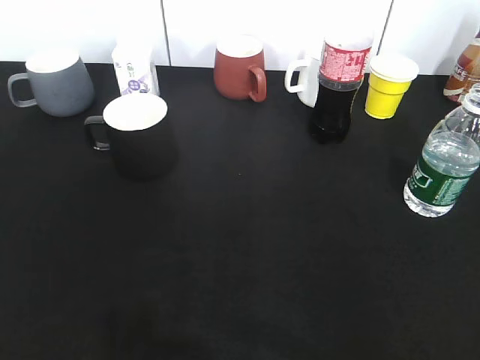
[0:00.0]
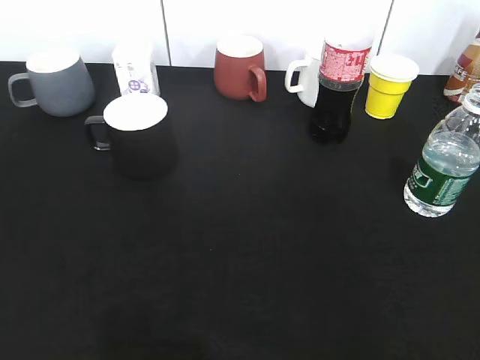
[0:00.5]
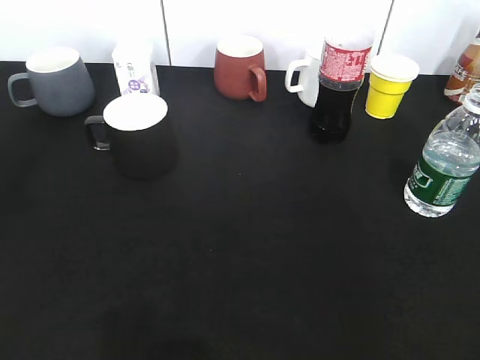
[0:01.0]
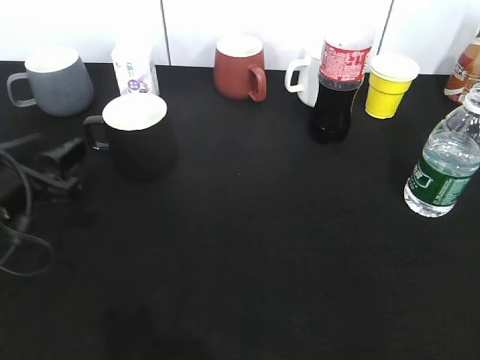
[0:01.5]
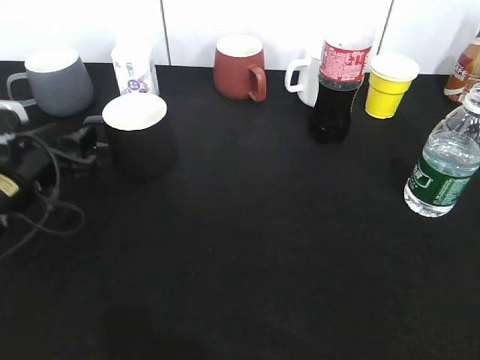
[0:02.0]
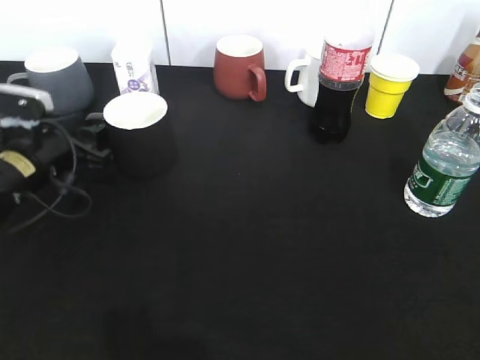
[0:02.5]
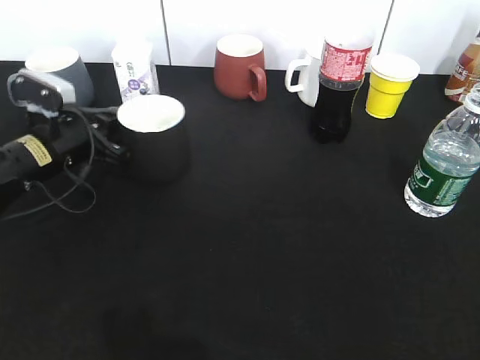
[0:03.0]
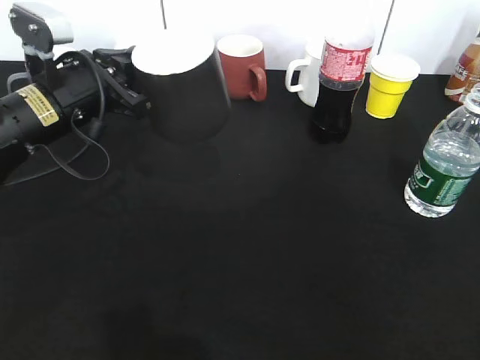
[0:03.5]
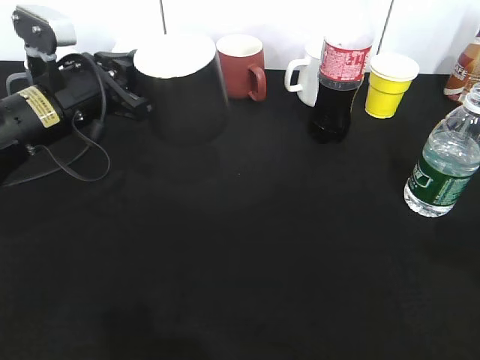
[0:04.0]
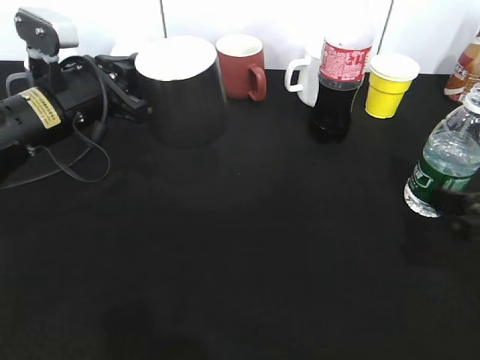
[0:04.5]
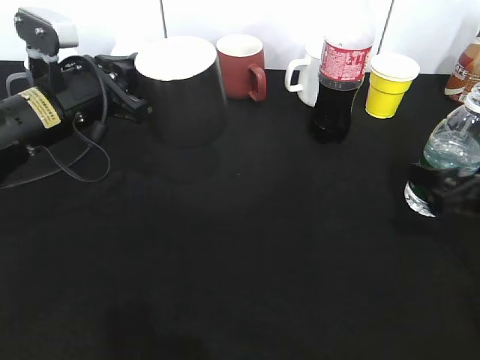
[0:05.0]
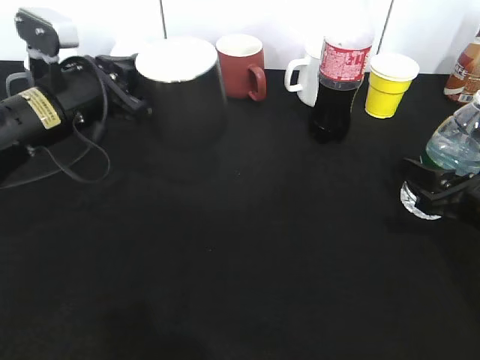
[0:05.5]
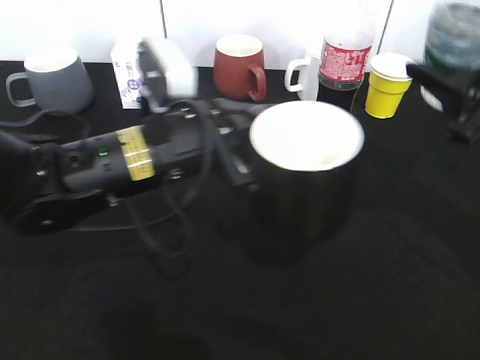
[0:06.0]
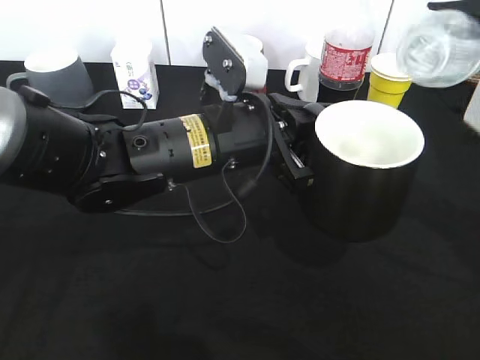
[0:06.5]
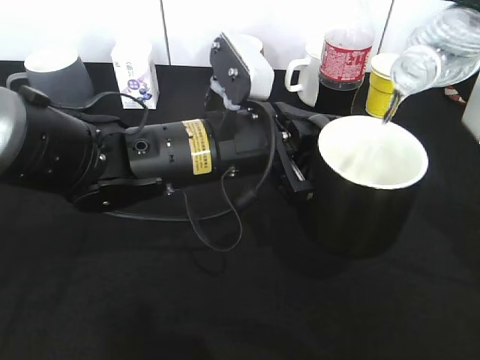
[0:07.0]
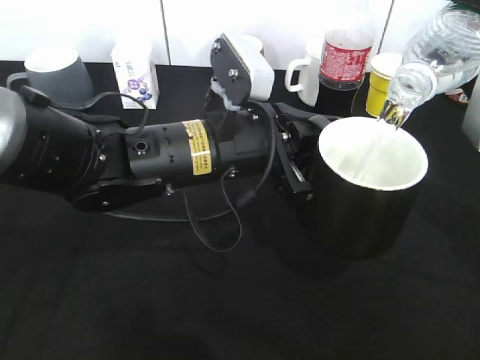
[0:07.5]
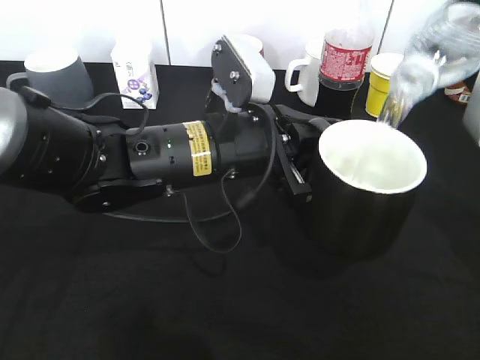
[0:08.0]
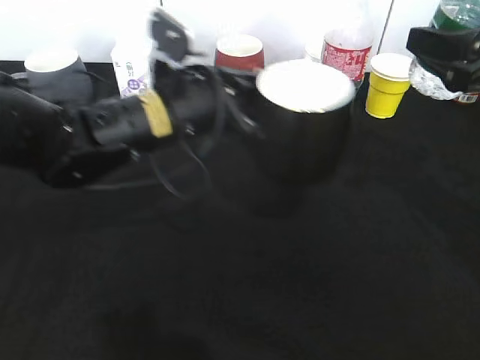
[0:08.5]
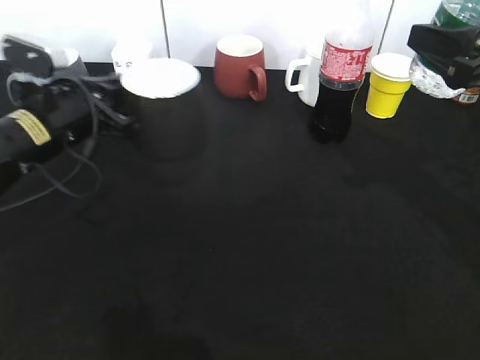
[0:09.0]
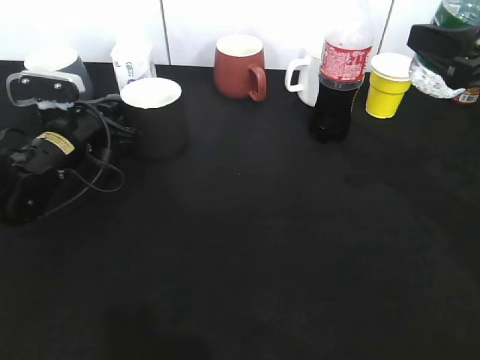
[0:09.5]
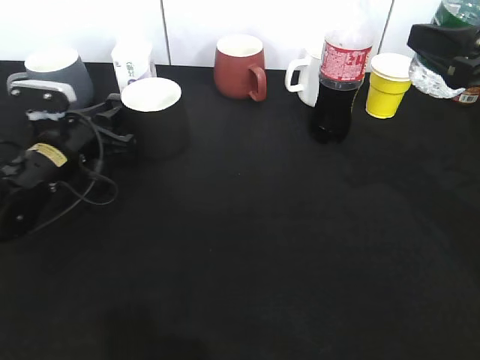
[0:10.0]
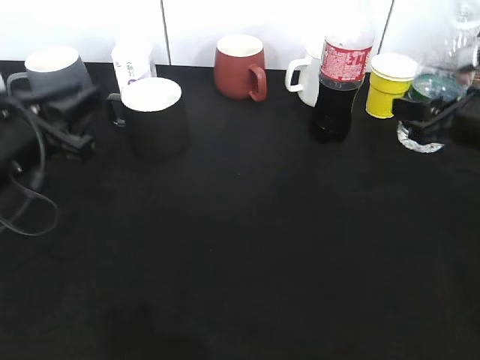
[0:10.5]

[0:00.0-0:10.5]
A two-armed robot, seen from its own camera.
Step, 0:00.5 to 0:02.5: Grasp the black cup with left gripper.
Step, 0:03.0 to 0:04.0: Lift the black cup with left gripper.
Step, 0:04.5 to 0:05.0: Grasp the bottle with water with right gripper.
Step, 0:05.5 to 0:08.0: Pour the water from bottle to cup with right gripper.
Step, 0:08.5 to 0:10.0: Place the black cup on the table with left gripper.
0:00.0 to 0:02.0: The left gripper travels forward and downward by some 35 cm.
0:02.0 to 0:04.0: The left gripper goes about 10 cm upward and to the right, and closes up. Meanwhile the right gripper travels forward by roughly 15 cm.
0:04.0 to 0:06.5: The left gripper moves to the right and backward, some 15 cm, while the right gripper travels forward and to the left by roughly 10 cm, moves roughly 10 cm downward and comes back, and closes up.
0:06.5 to 0:08.5: The left gripper ends up roughly 5 cm from where it was.
0:08.5 to 0:10.5: The left gripper moves to the left, about 15 cm, and opens its fingers, while the right gripper goes roughly 10 cm downward.

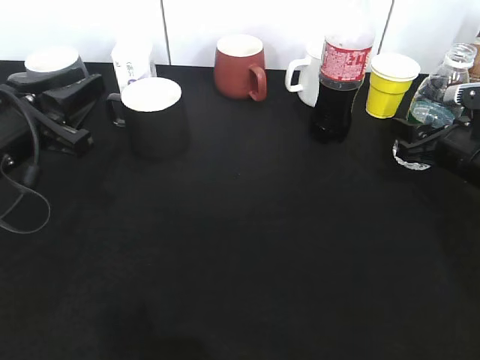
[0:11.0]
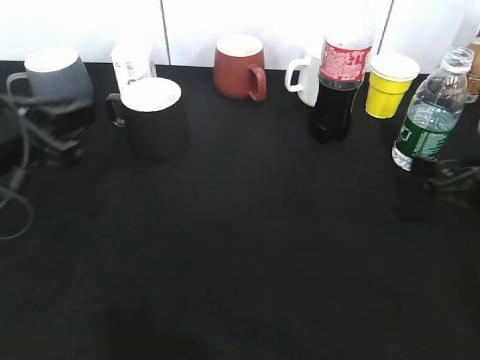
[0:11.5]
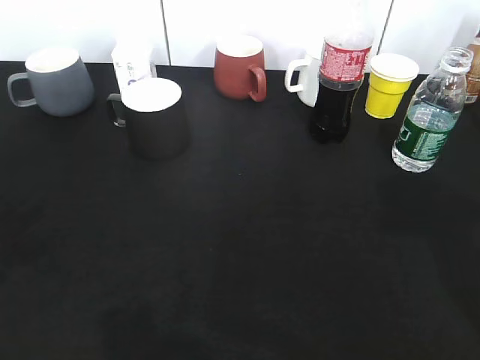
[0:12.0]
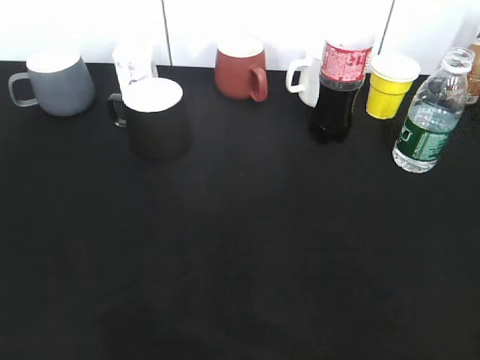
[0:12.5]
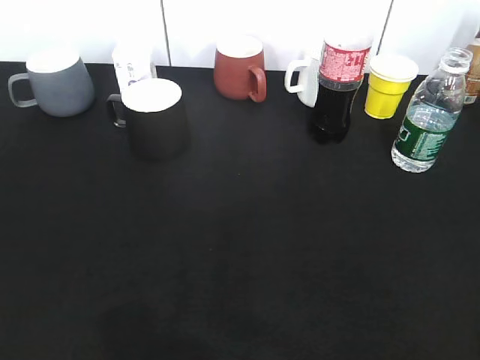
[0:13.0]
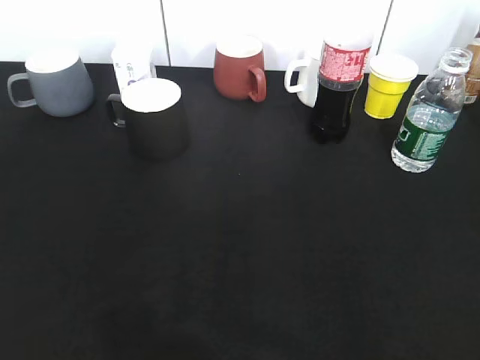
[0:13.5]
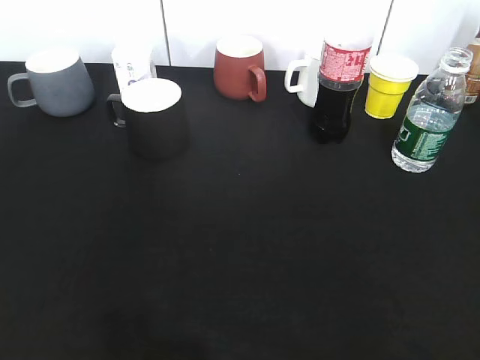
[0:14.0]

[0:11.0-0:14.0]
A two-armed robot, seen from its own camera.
0:11.0 to 0:12.5: The left gripper is displaced backward by roughly 25 cm; the right gripper moves backward and upward, about 35 cm, and opens its fingers.

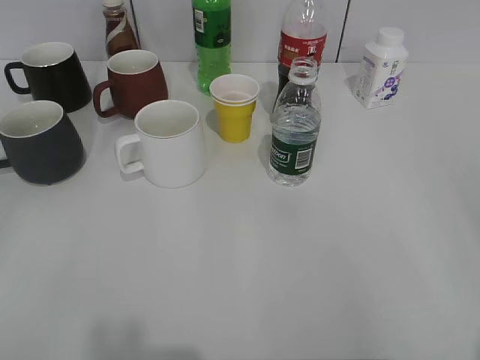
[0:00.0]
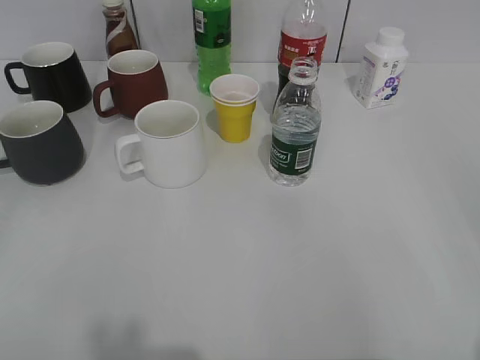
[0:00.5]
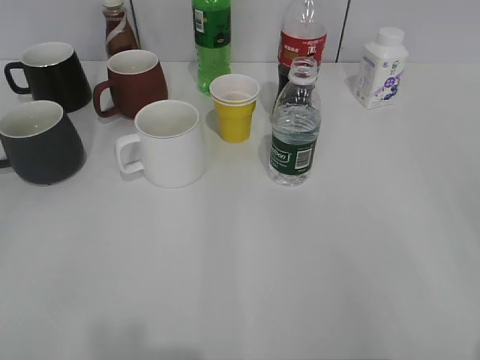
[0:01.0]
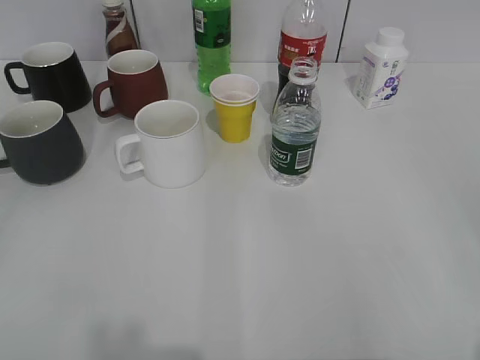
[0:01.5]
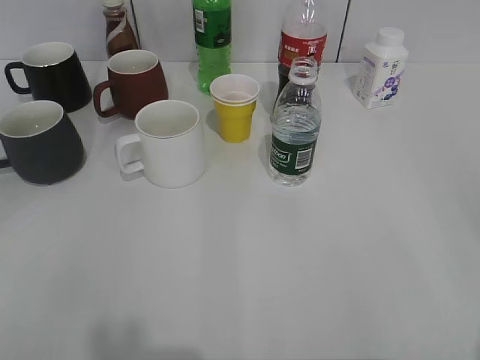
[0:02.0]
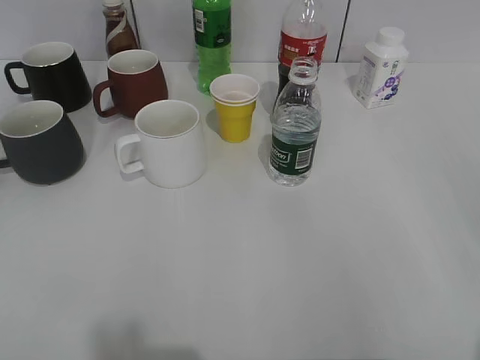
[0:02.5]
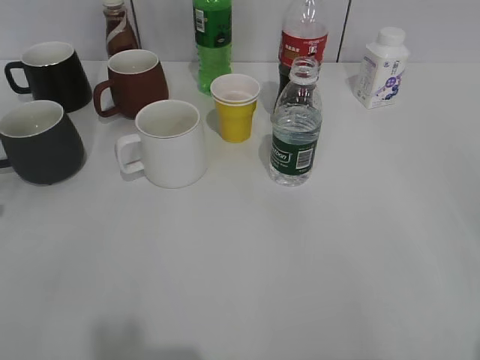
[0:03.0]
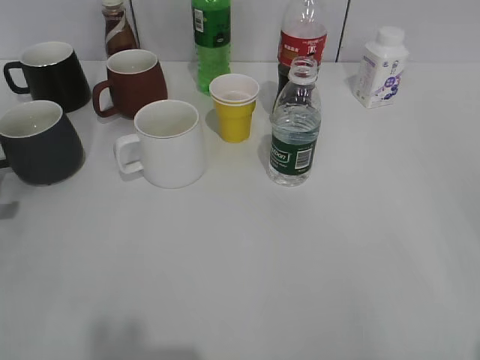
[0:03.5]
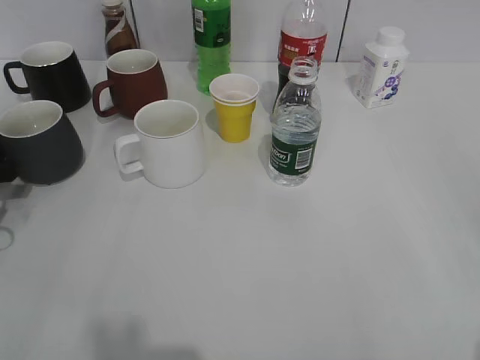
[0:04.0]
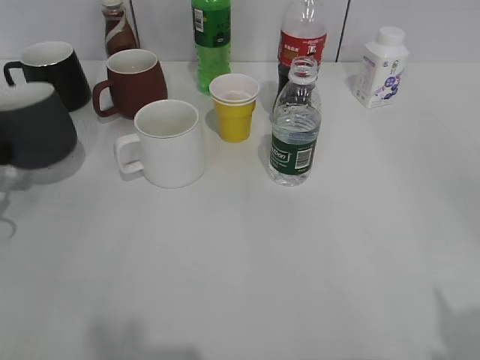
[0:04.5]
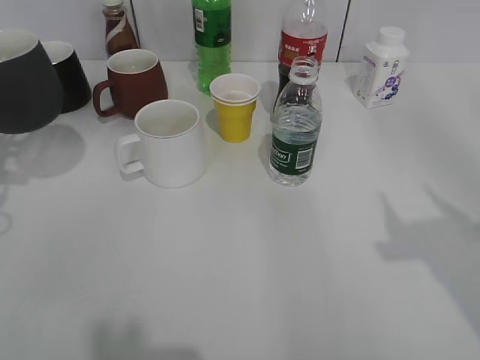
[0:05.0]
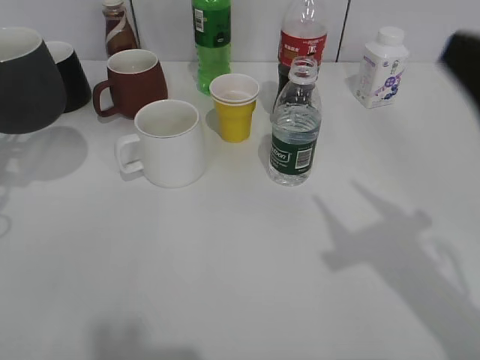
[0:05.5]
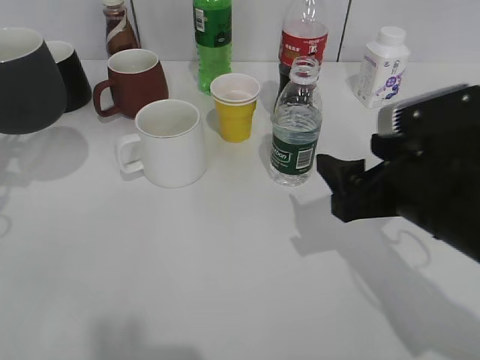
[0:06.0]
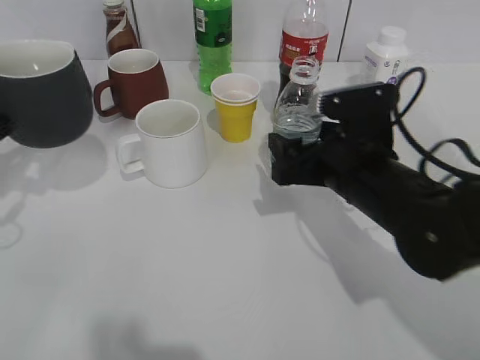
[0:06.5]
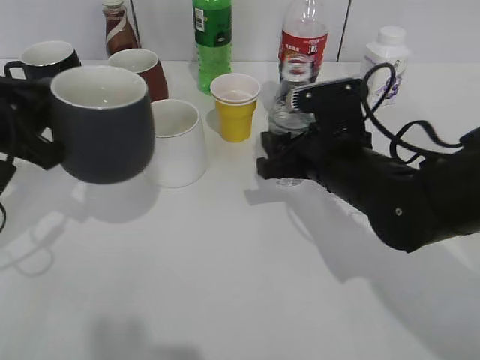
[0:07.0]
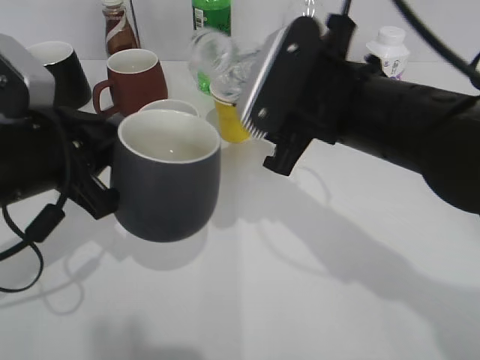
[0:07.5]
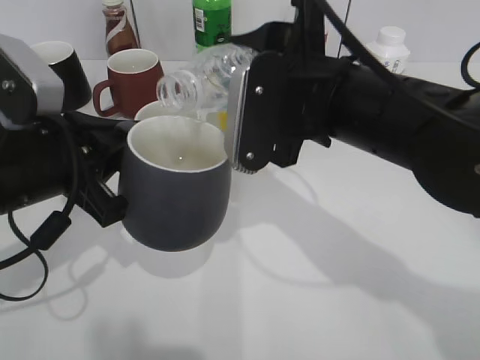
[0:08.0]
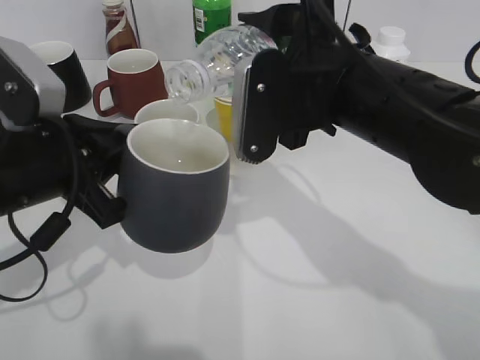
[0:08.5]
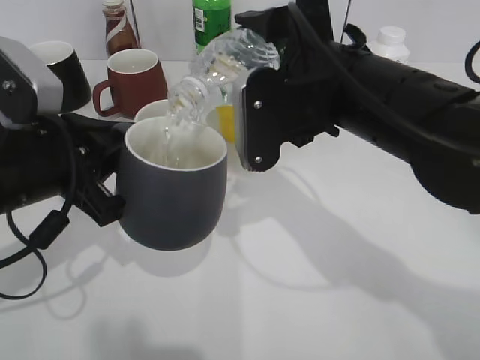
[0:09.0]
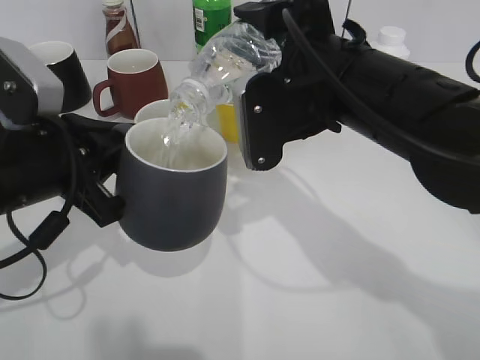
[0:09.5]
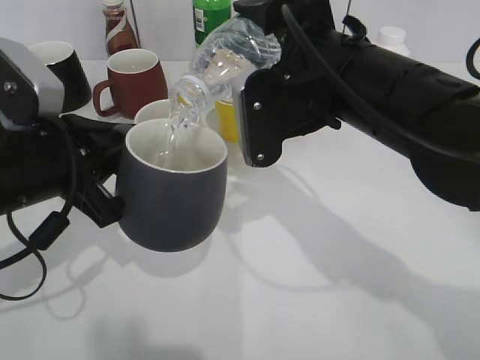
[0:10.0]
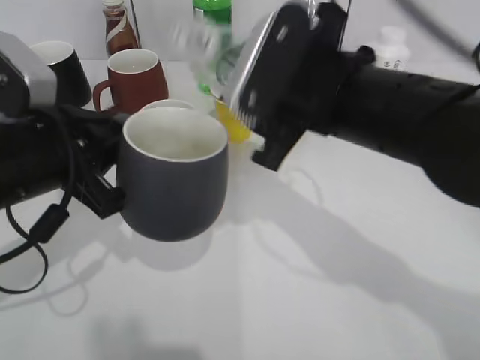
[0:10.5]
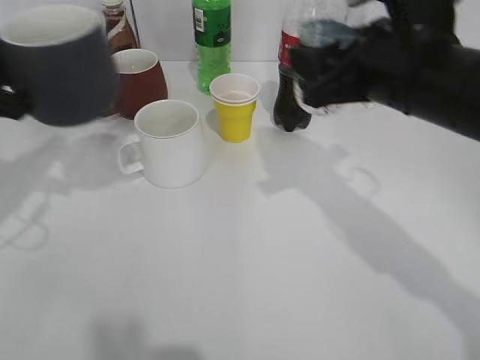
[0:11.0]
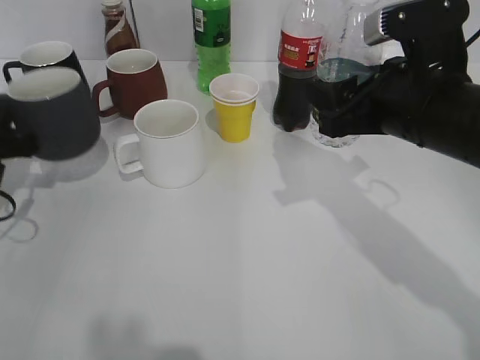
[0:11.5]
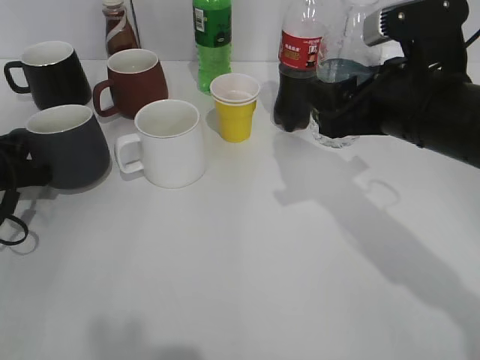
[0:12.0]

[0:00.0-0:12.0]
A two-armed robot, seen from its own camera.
Step, 0:02.0 to 0:04.0: Grasp the black cup with left gripper.
Step, 0:04.5 to 0:05.0: Lift the black cup with left gripper.
Step, 0:05.5 to 0:06.5: Grasp the bottle with water with right gripper.
Step, 0:07.0 to 0:10.5: Pour the water from bottle to cup with right gripper.
0:02.0 to 0:04.0: The left gripper heads forward and downward, covering some 35 cm.
0:04.0 to 0:06.0: The right gripper travels forward, to the left and downward by approximately 25 cm, and closes, then opens again, while the left gripper shifts some 10 cm upward, and closes up.
0:06.0 to 0:08.0: The right gripper shifts roughly 10 cm to the left and upward, and closes its fingers; the left gripper heads to the right and backward, covering roughly 15 cm.
0:10.0 to 0:12.0: The left gripper heads to the left, downward and forward, covering roughly 20 cm. The right gripper shifts about 10 cm to the right.
